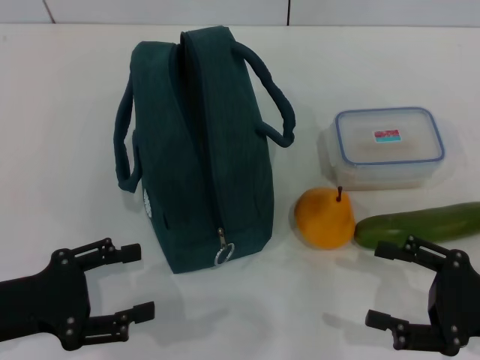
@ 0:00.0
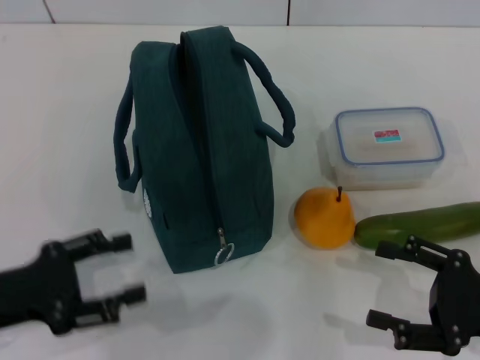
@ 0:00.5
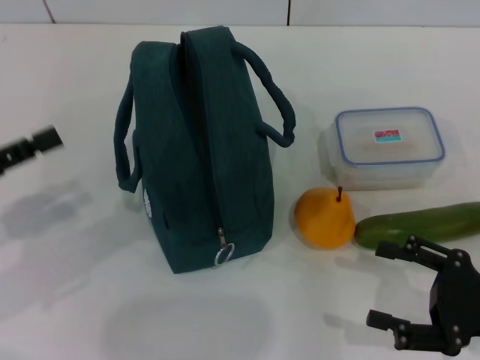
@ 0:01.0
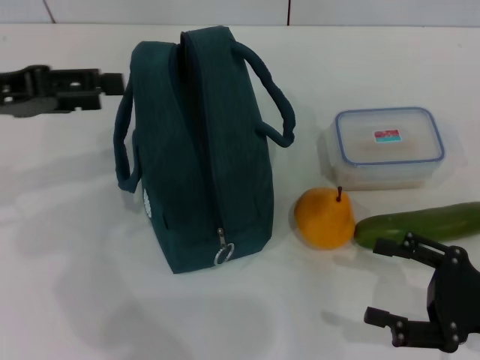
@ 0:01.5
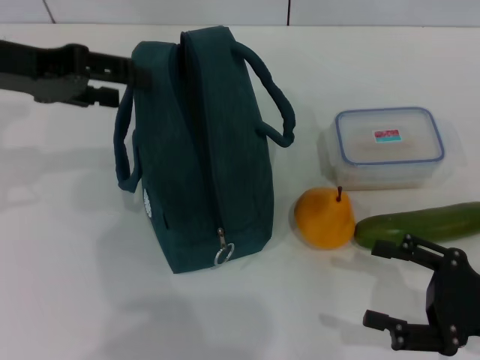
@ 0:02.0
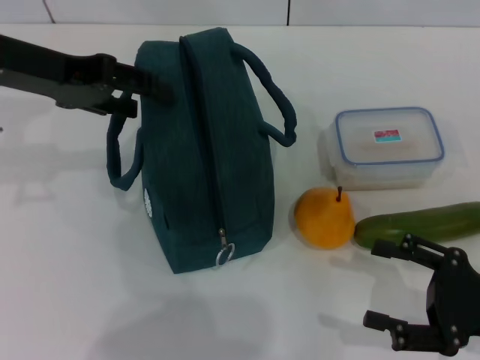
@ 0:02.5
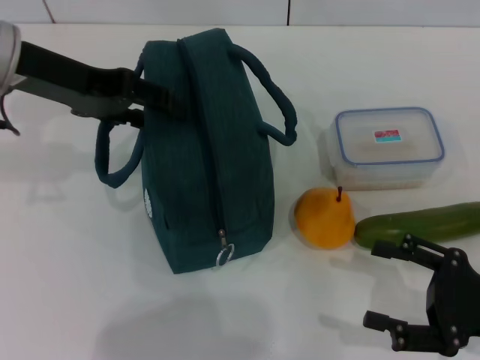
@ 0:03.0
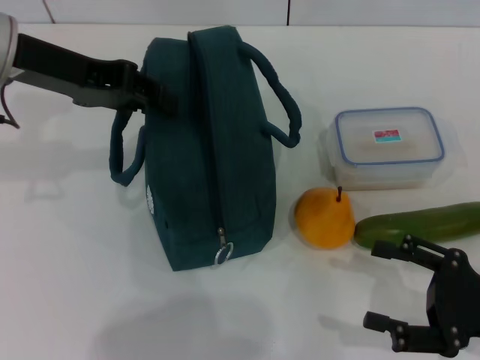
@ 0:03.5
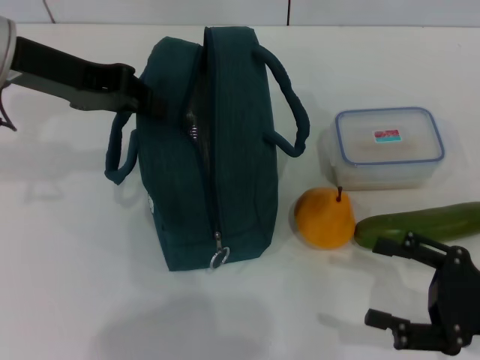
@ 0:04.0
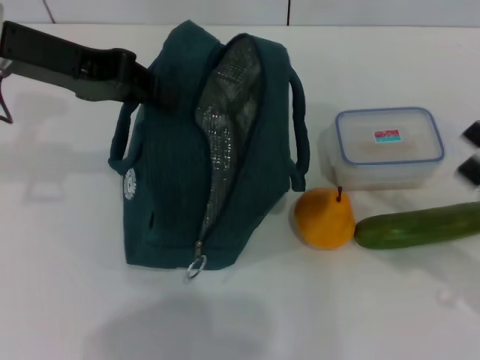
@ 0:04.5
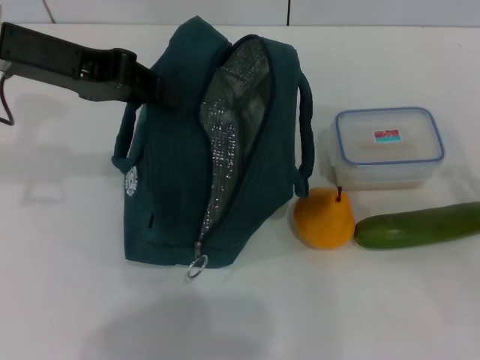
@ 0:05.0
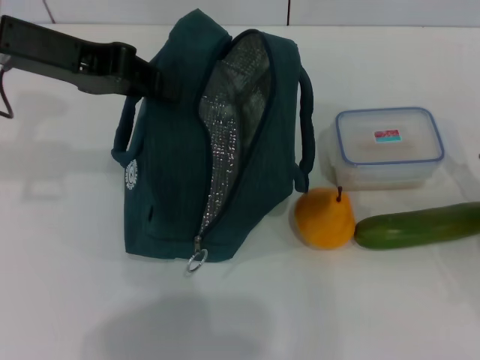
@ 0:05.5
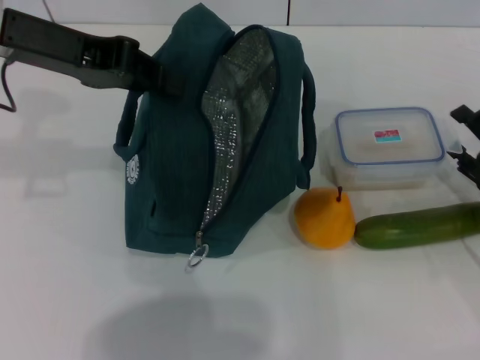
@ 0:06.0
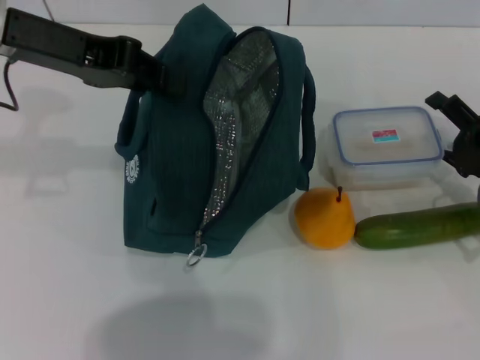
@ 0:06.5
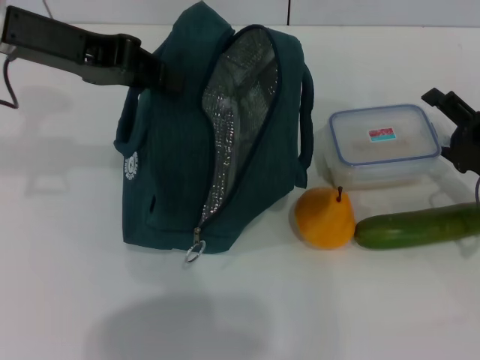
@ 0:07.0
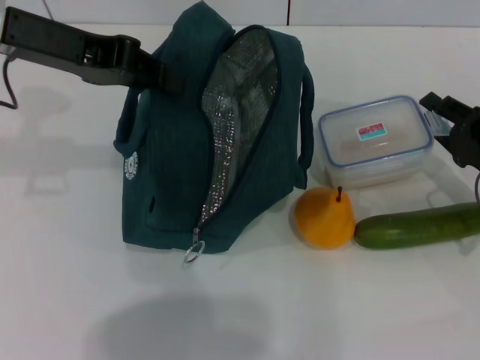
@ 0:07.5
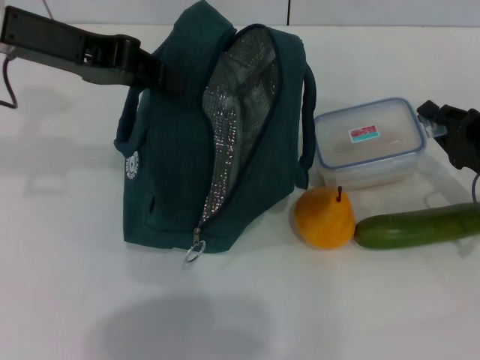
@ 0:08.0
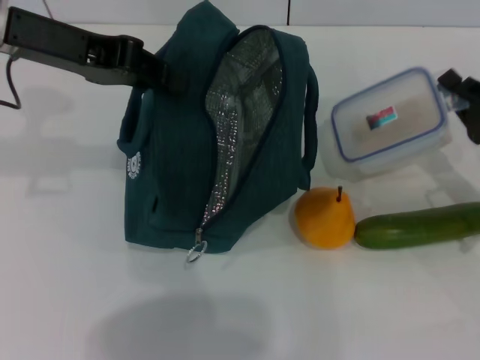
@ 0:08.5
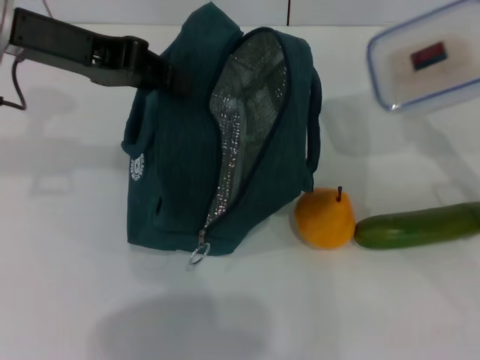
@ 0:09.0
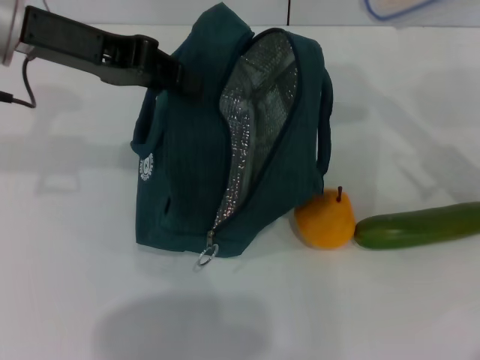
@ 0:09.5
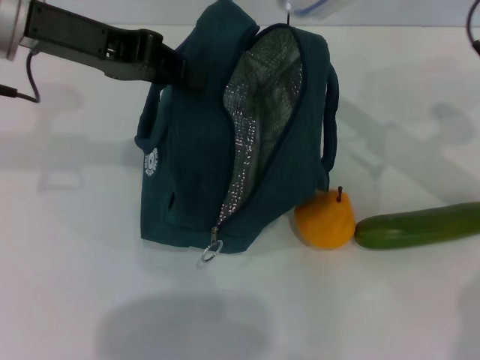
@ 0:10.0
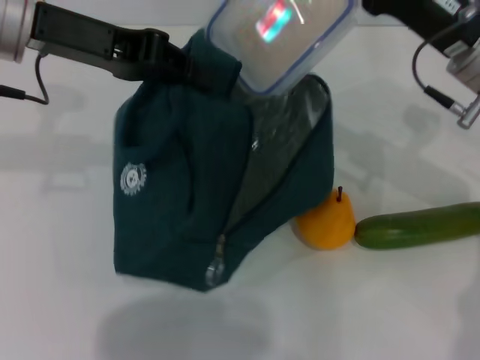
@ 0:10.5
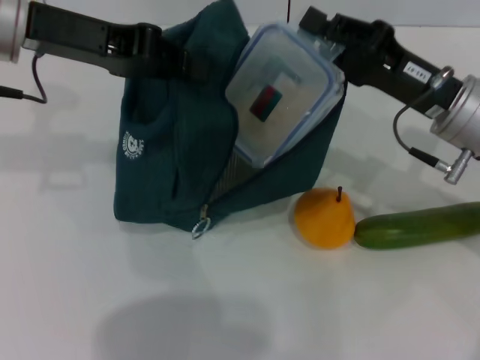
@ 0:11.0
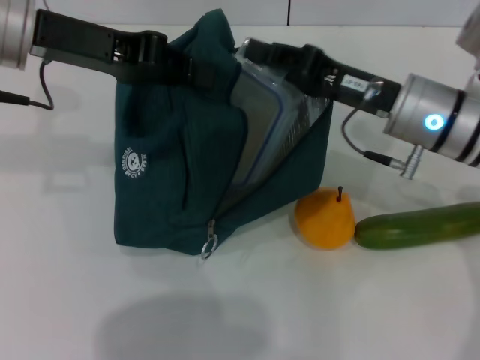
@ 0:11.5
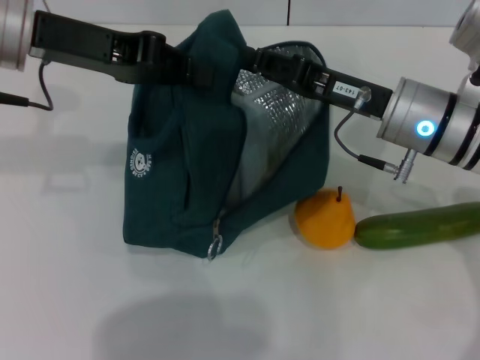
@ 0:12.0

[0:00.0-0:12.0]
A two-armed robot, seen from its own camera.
Step, 0:00.0 to 0:05.0: Hold the lunch bag with your left hand.
Step, 0:05.5 to 0:07.5: Pick up the lunch box with your right hand.
0:00.0 to 0:02.0: The left gripper is displaced upward and forward by approximately 25 cm.
0:02.0 to 0:04.0: The left gripper closes its fingers.
0:04.0 to 0:06.0: The right gripper travels forward by some 10 cm.
0:06.0 to 0:08.0: The right gripper closes.
0:08.0 to 0:10.0: The right gripper moves upward, to the left and forward, roughly 15 cm.
0:10.0 to 0:12.0: The right gripper travels to the left and downward by about 10 cm.

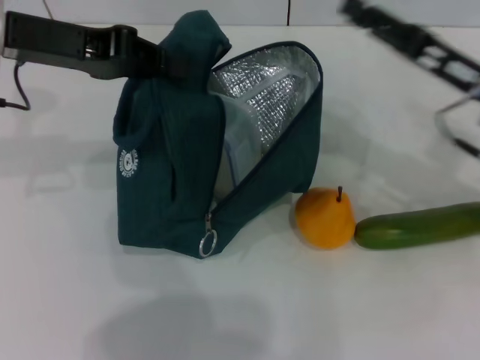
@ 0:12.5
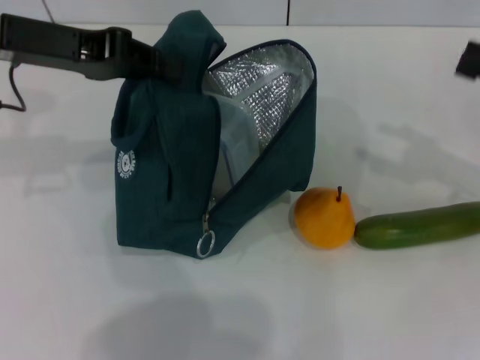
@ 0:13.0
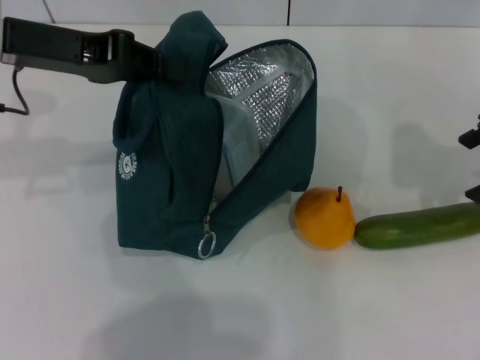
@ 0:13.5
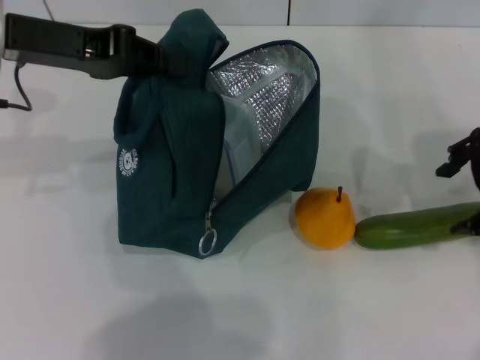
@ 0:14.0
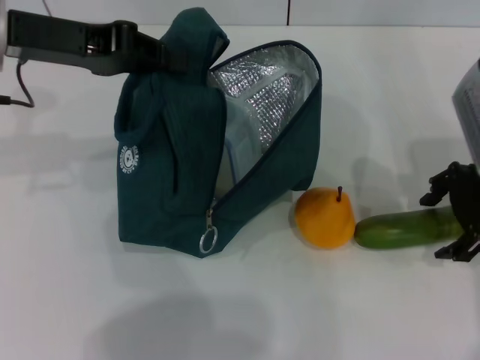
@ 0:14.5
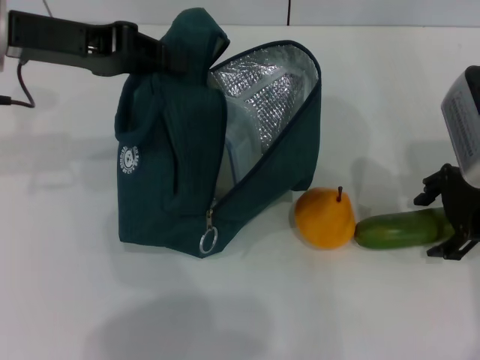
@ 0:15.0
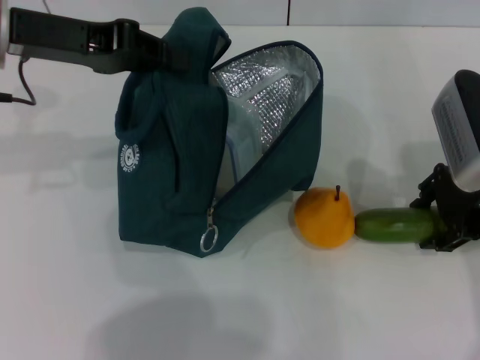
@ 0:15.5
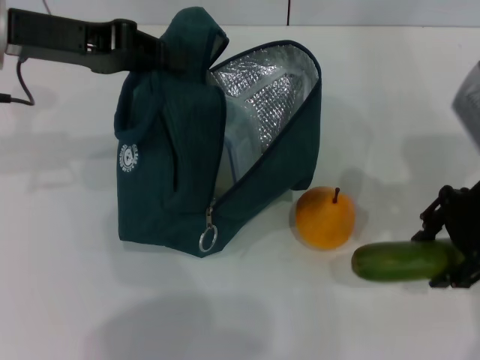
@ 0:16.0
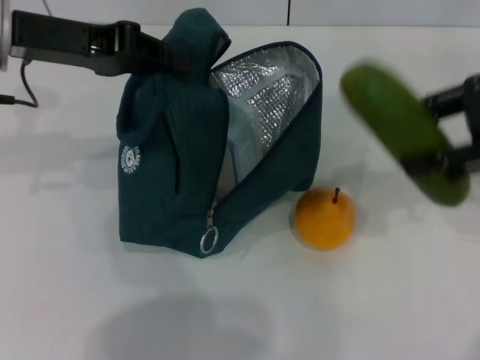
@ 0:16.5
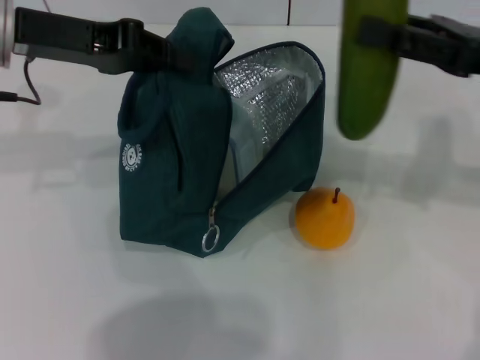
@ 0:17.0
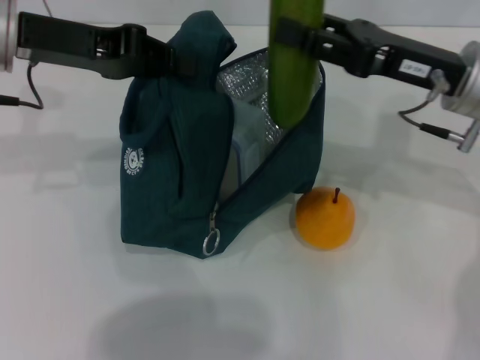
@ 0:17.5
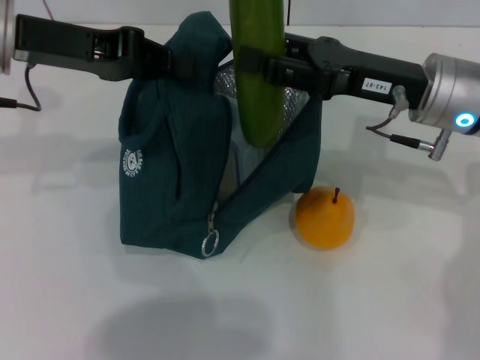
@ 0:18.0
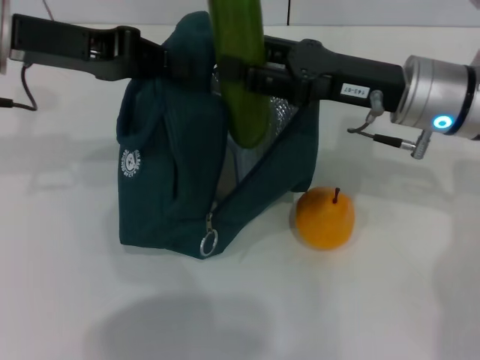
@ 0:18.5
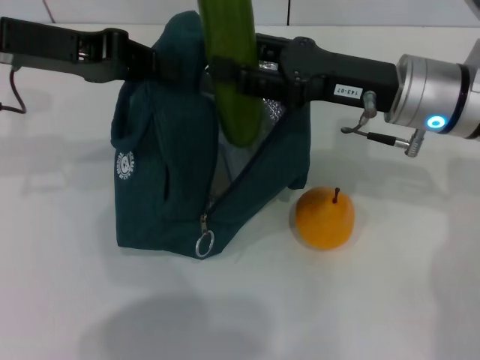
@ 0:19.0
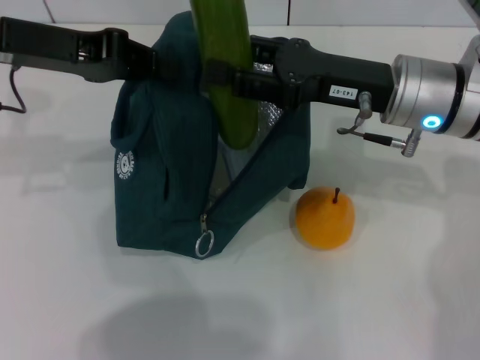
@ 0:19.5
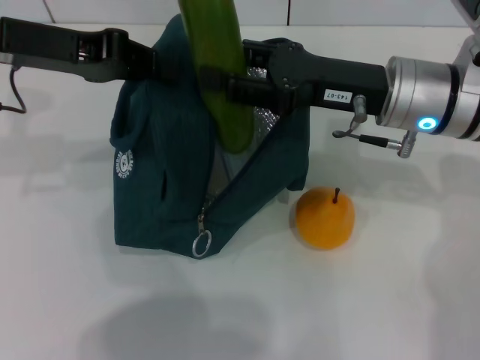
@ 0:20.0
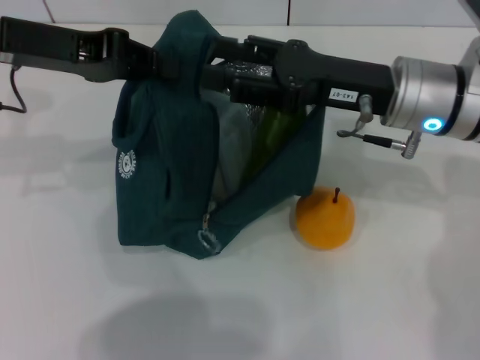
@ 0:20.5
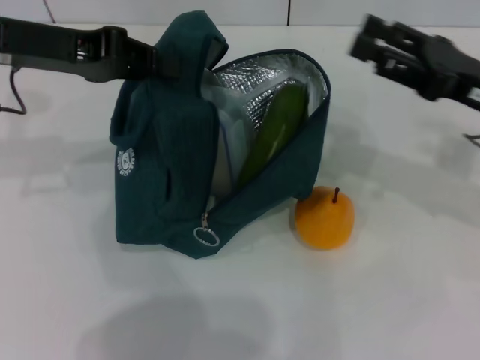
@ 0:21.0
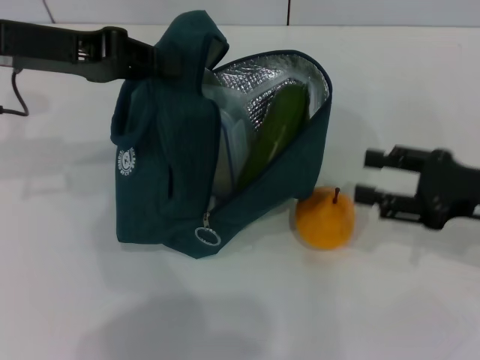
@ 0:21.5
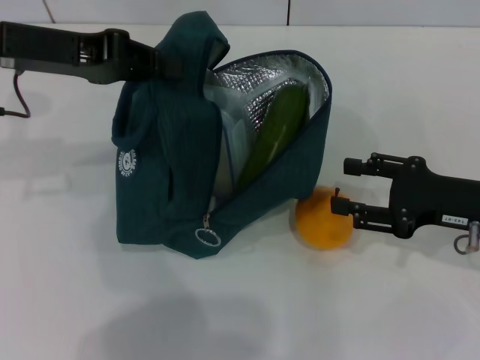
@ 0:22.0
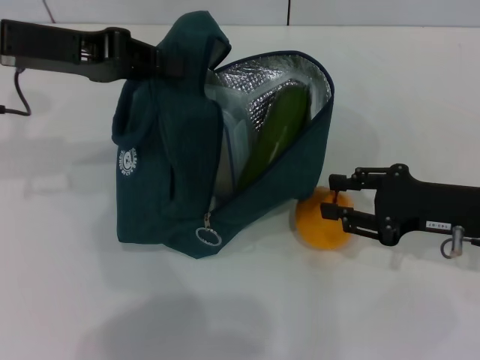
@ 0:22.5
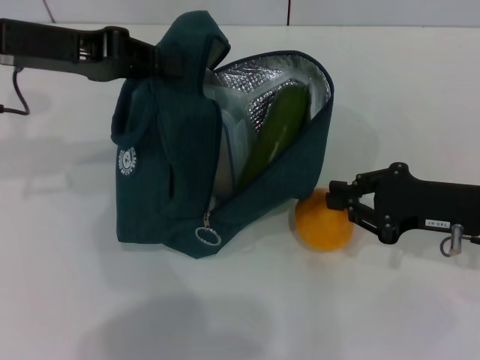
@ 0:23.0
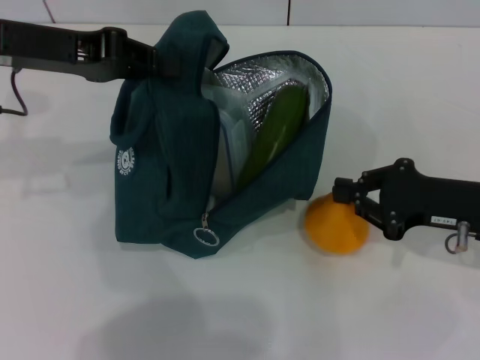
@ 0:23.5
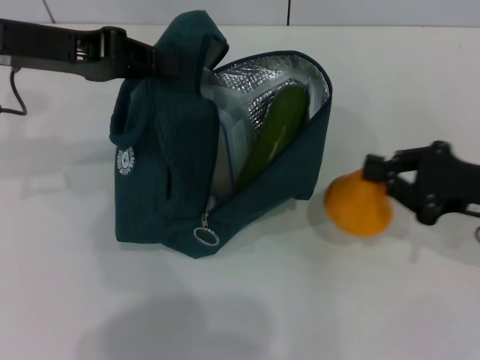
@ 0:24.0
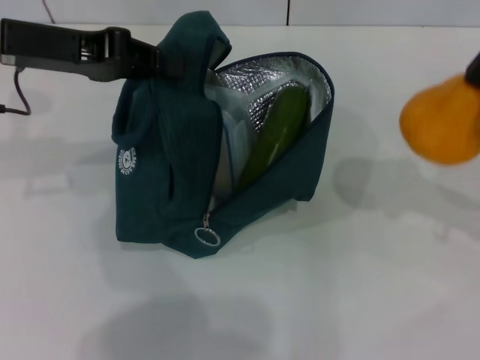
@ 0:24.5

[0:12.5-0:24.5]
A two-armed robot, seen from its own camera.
Step, 0:12.5 to 0:15.5: Pick up the cucumber with your right hand.
Step, 0:16.0 to 0:20.5: Put the cucumber into the lunch bag with your right hand.
Step, 0:21.0 to 0:22.5: Grab the pear with your right hand.
0:12.5 to 0:14.5: The right gripper reaches about 10 cm to the right, then returns.
0:14.5 to 0:16.5: The right gripper goes some 5 cm upward.
0:16.5 to 0:18.5: The right gripper travels to the left and downward by roughly 15 cm.
0:18.5 to 0:20.5: Both grippers stay about where they are.
0:20.5 to 0:22.5: The right gripper travels to the right, downward and backward by some 15 cm.
0:22.5 to 0:24.5: The right gripper heads to the right and upward, covering approximately 10 cm, and closes.

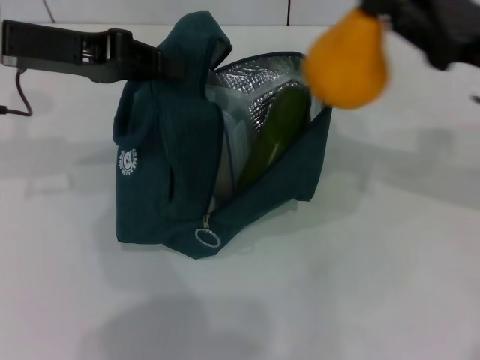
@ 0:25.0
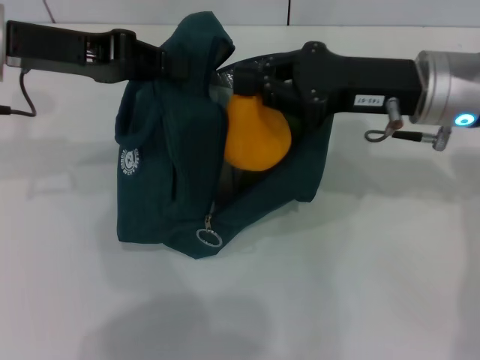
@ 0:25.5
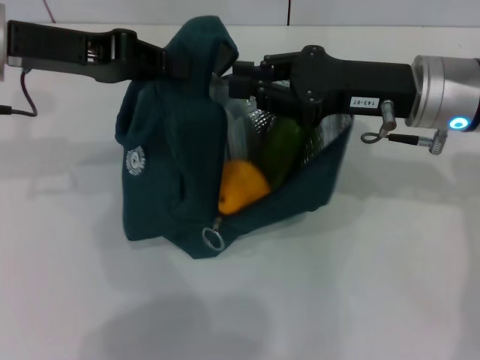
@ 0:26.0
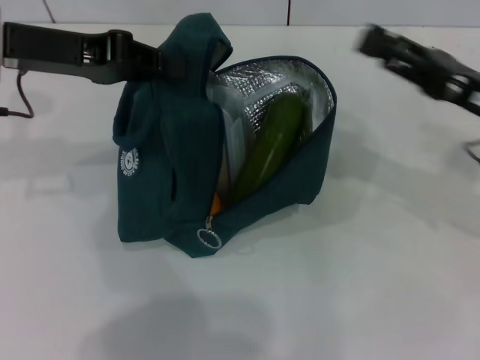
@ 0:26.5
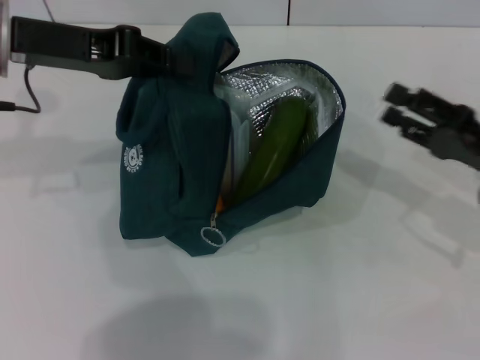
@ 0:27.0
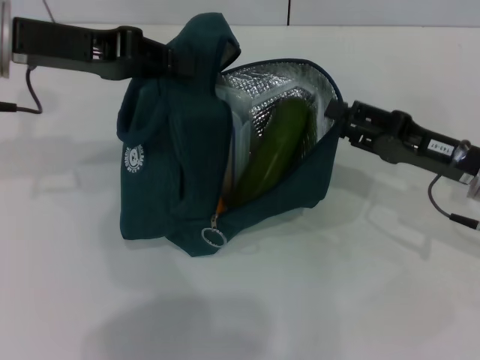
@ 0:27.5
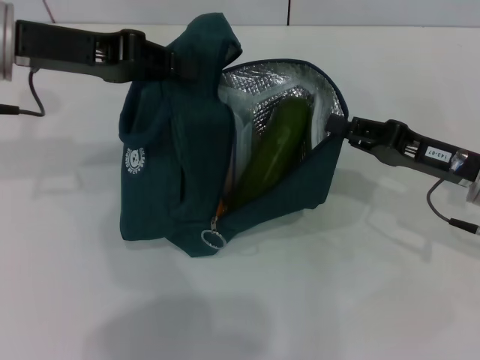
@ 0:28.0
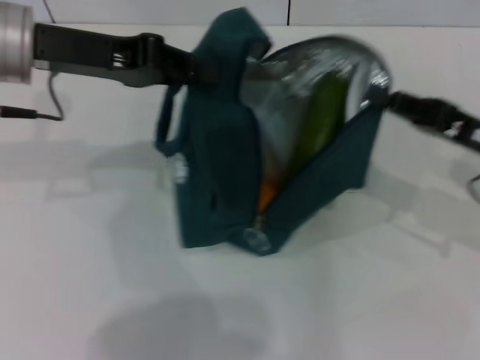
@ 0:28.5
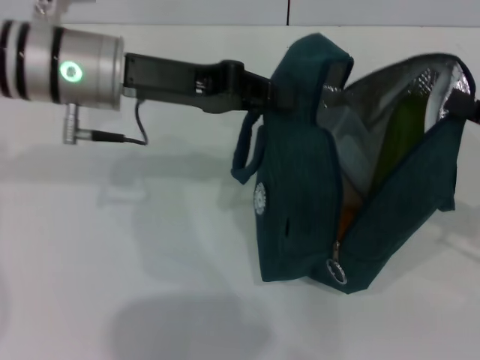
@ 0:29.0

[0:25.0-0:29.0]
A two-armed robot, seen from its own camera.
0:25.0 to 0:27.0: The right gripper travels downward by about 10 cm, travels to the left and back again, about 10 cm each way, and opens up.
0:27.0 to 0:29.0: The left gripper goes about 5 cm to the right, while the right gripper ends up roughly 5 cm from where it was, and closes its fingers.
